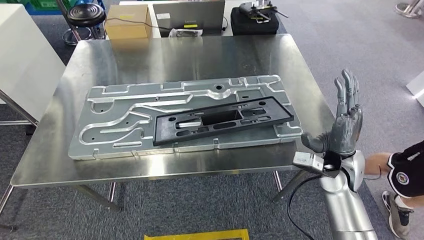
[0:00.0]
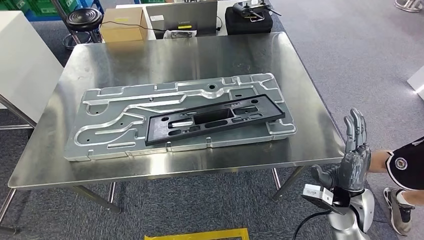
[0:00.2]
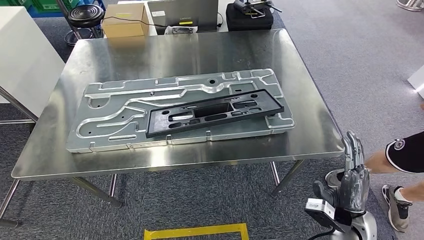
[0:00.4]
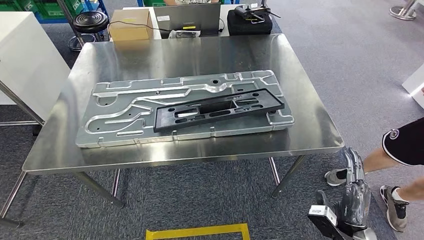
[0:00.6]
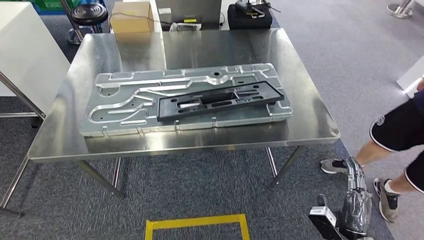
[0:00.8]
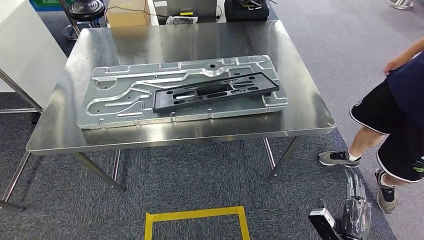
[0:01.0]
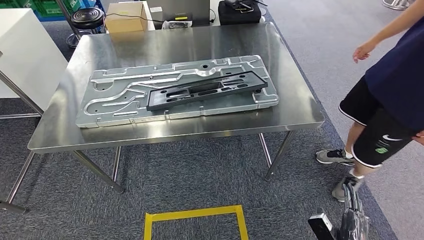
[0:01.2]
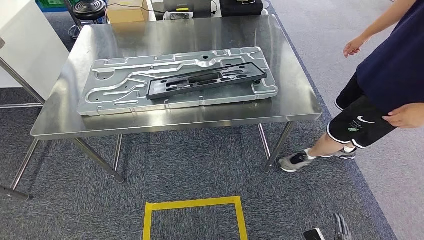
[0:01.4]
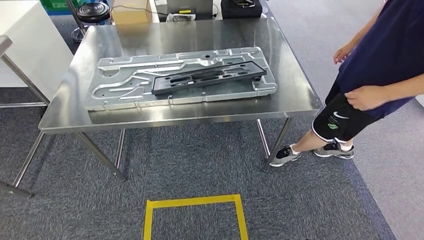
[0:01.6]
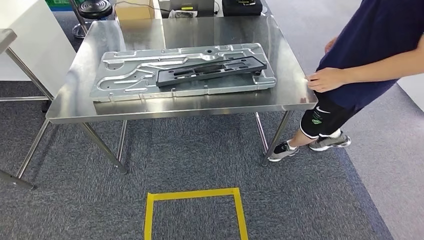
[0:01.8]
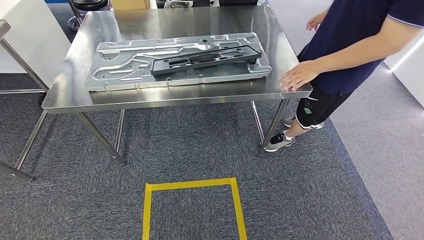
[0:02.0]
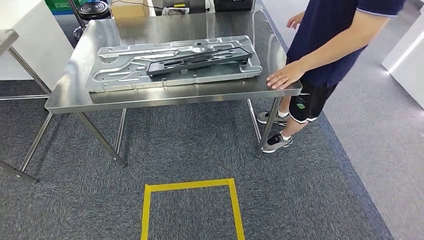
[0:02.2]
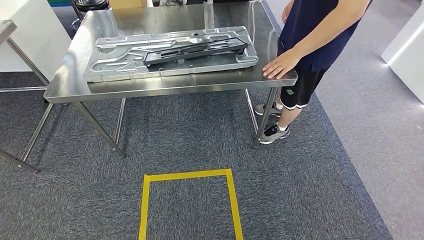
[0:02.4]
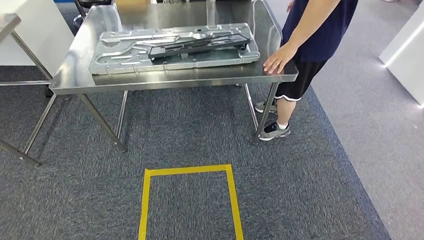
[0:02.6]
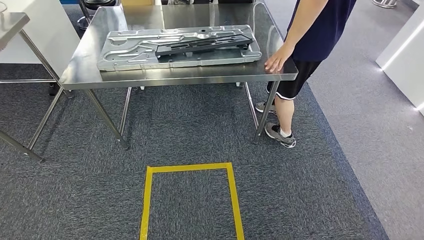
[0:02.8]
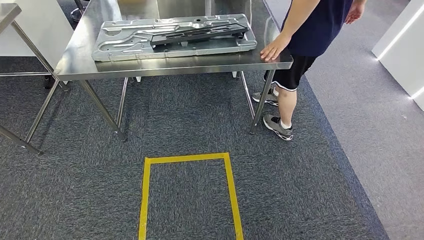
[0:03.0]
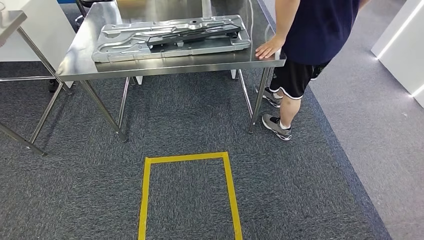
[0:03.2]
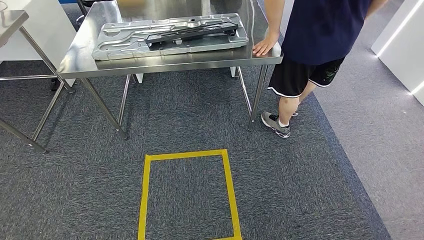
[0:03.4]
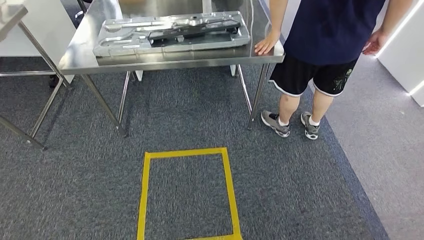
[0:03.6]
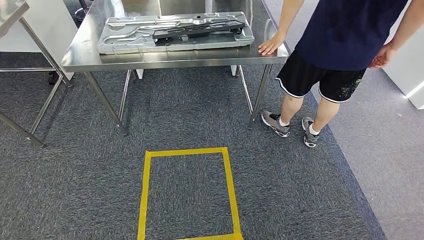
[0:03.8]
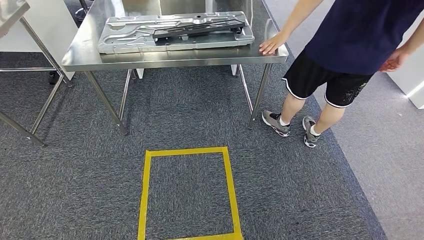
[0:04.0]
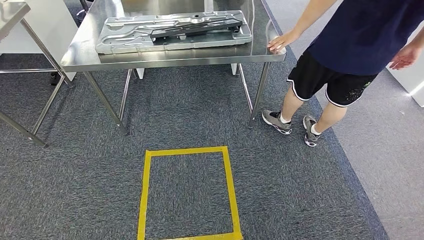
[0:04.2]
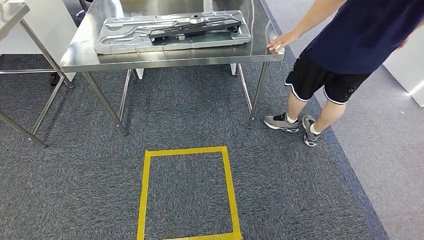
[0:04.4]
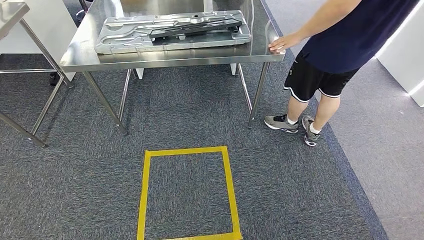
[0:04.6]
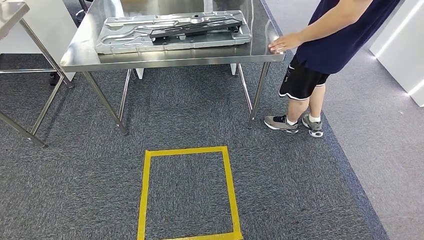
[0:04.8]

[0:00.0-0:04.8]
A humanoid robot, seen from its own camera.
Step, 0:00.2 to 0:04.8: Return to the initial position at the shelf.
